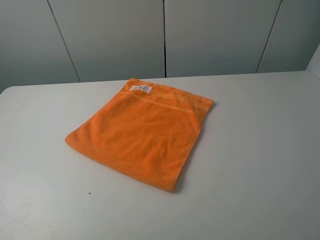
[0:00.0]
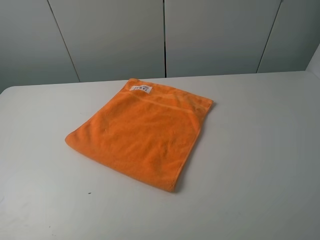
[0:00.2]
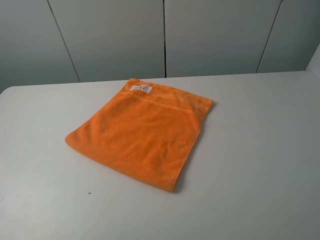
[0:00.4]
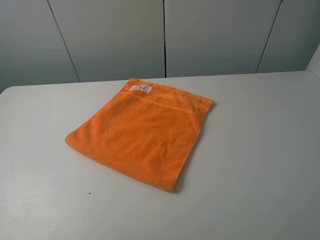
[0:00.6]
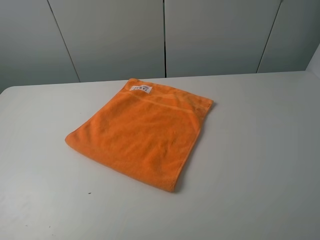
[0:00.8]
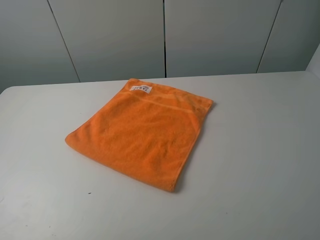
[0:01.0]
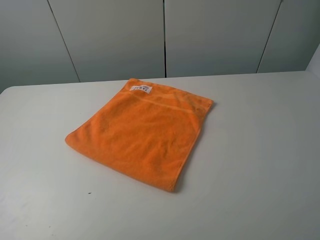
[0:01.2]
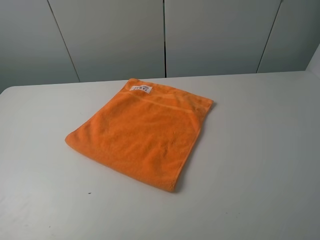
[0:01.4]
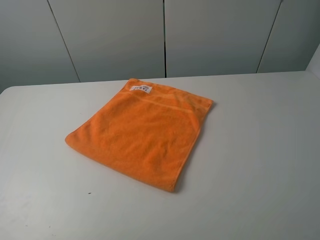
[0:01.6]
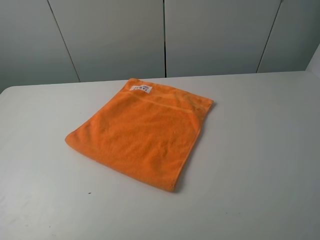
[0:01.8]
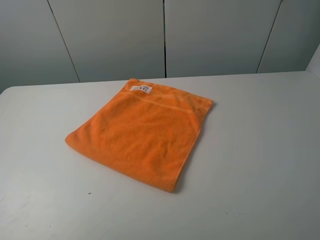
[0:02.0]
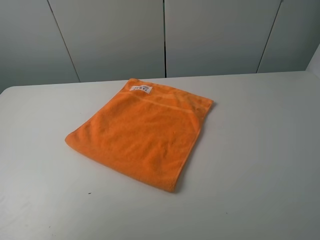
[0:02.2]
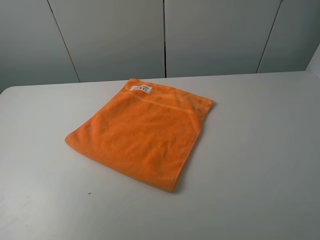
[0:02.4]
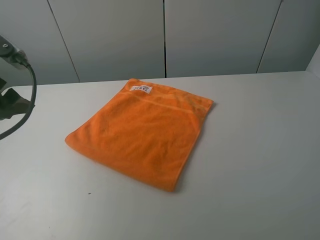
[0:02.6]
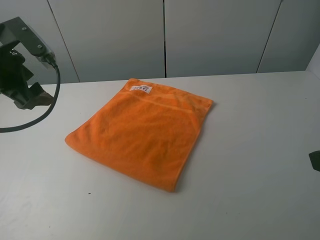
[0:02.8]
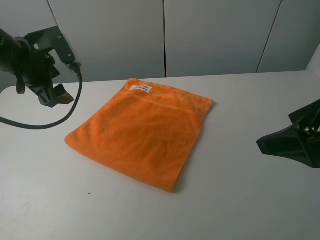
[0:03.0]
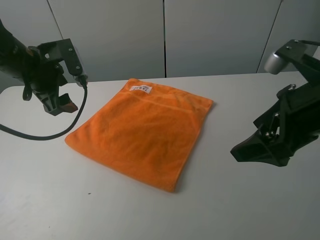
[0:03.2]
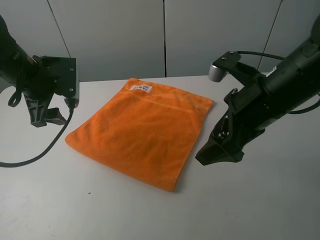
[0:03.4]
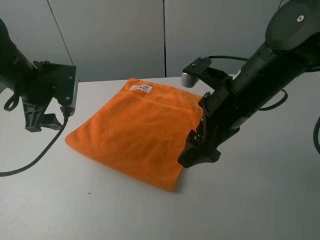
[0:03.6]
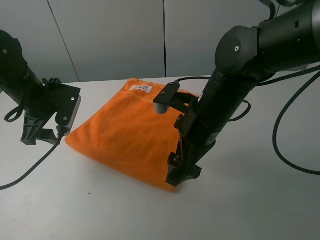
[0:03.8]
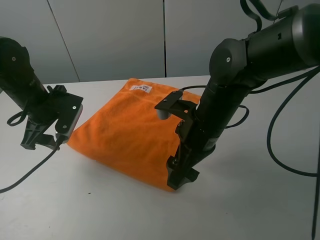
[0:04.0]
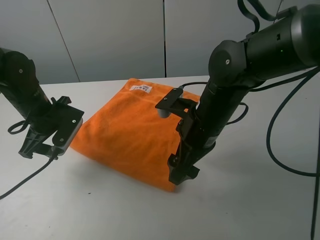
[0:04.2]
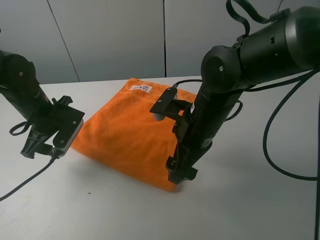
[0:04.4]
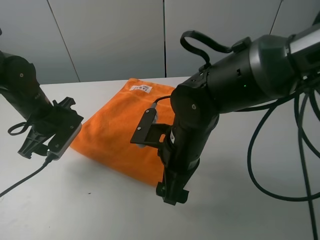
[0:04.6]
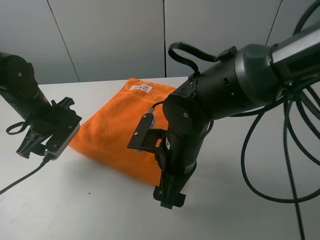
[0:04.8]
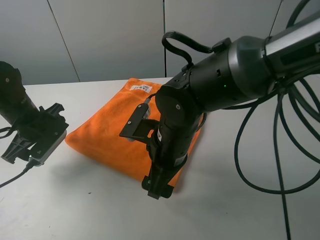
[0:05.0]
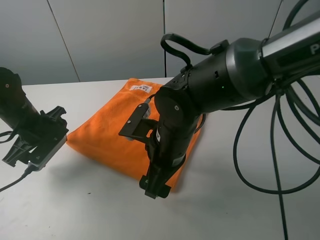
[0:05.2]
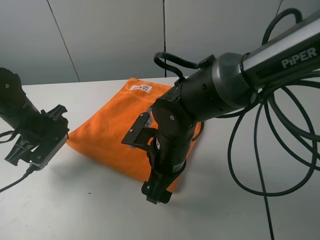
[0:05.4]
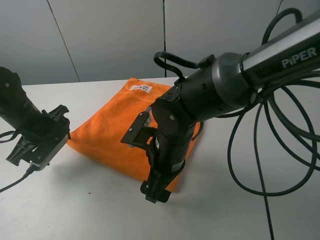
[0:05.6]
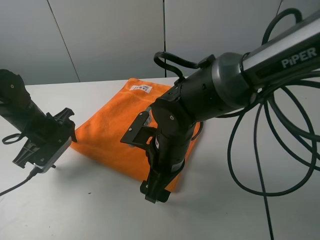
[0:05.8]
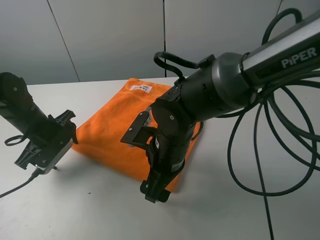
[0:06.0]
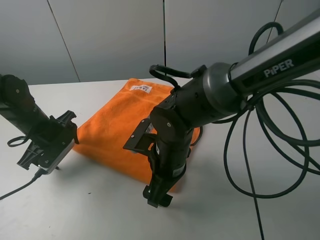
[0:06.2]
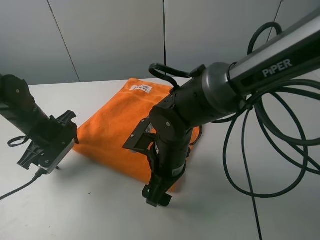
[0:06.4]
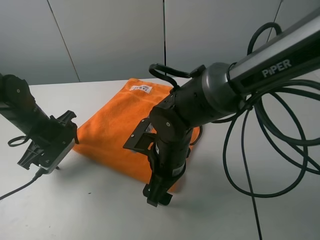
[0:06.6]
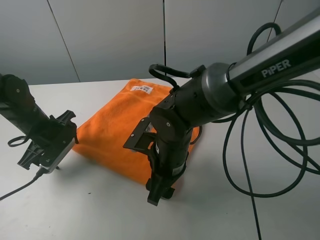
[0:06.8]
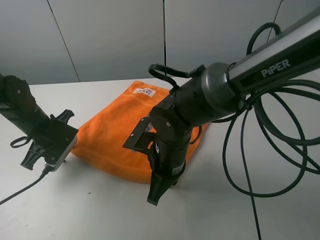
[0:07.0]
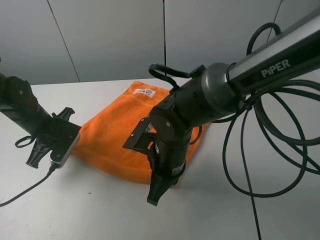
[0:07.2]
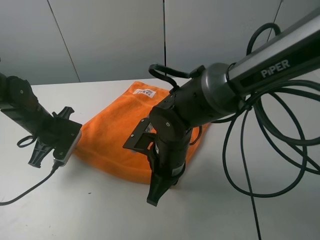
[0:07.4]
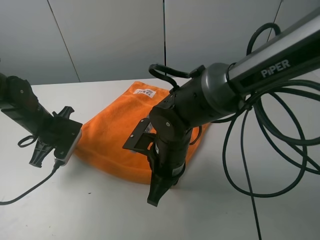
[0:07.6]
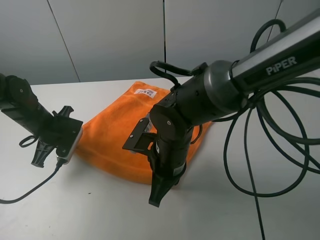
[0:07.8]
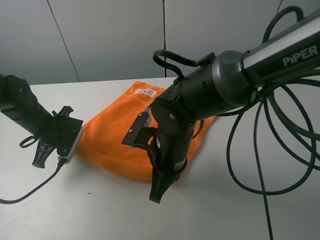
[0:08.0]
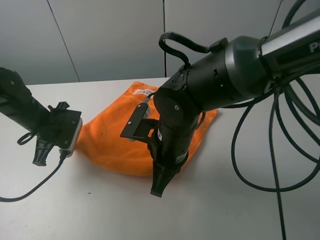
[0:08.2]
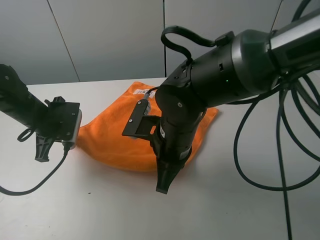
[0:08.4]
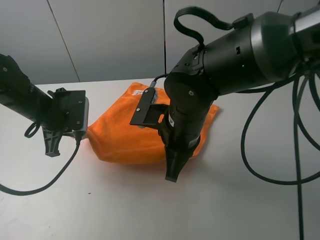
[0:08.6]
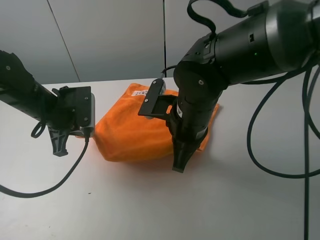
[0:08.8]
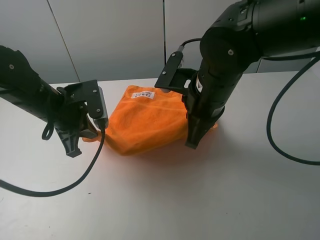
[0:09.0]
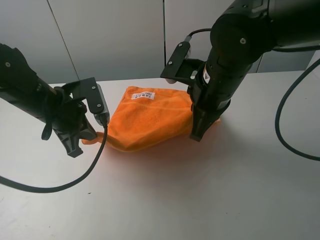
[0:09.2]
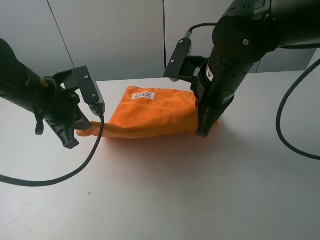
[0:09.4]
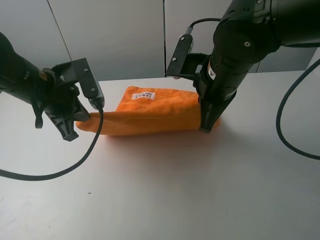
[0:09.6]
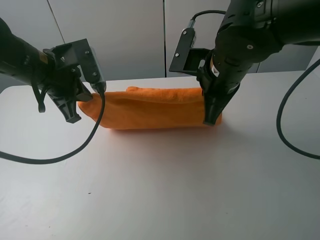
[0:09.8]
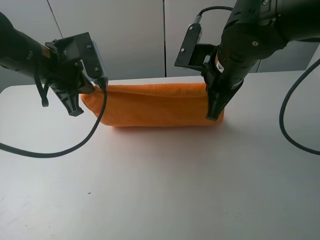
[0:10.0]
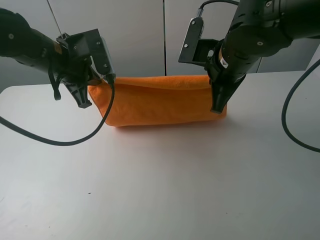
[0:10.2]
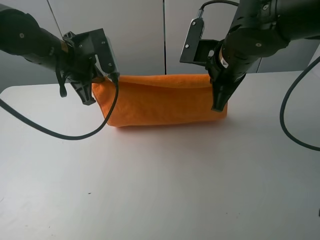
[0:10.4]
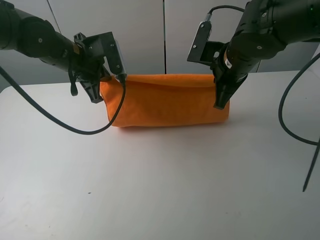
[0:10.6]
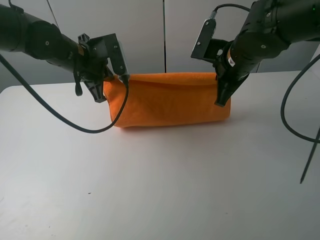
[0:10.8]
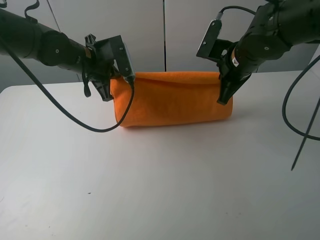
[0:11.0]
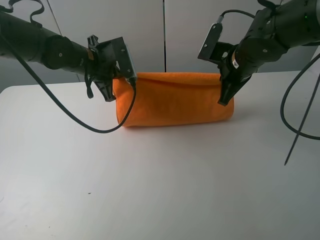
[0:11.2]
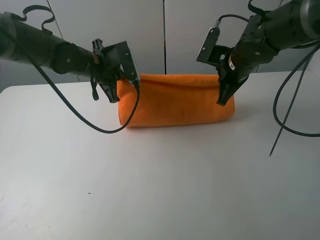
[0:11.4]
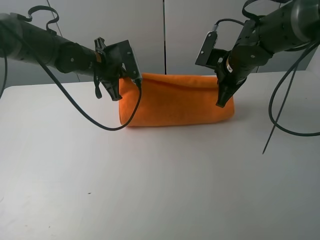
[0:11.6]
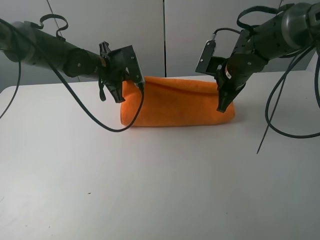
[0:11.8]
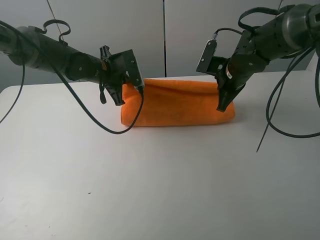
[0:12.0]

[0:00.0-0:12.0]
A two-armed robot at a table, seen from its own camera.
Task of the whole recording: fold the towels on the table.
Step, 0.0 to 7.2 s: Grasp the orange towel with the left gripper.
0.0 to 1.6 s: Both grippers stay put.
1.6 to 3.0 s: The left gripper heads forward, covering about 35 cm. The right gripper moves forward, roughly 15 cm.
3.0 to 4.4 s: The right gripper travels to the left, downward and forward by about 20 cm, while the left gripper moves downward, approximately 10 cm.
4.4 to 6.0 s: The right gripper shifts by about 5 cm.
6.0 to 7.6 s: The right gripper closes its fingers; the left gripper closes.
7.6 to 9.0 s: Both grippers move upward and to the right, some 10 cm.
9.0 to 10.4 s: The right gripper travels forward by some 5 cm; the left gripper heads forward and upward, covering roughly 10 cm.
10.4 to 12.0 s: The right gripper goes some 10 cm forward and downward. Meanwhile the left gripper moves downward and forward, some 10 cm.

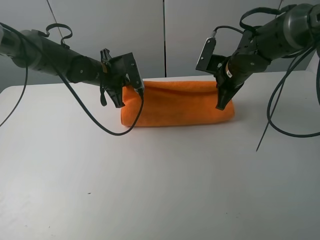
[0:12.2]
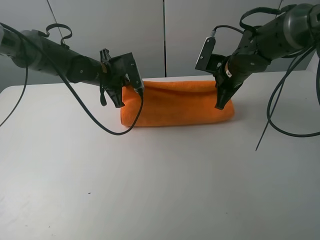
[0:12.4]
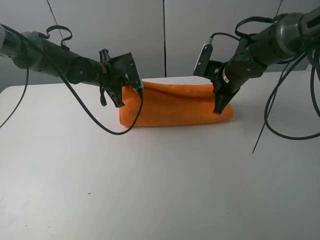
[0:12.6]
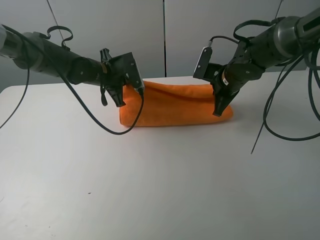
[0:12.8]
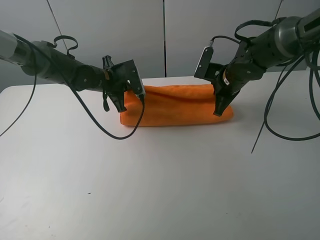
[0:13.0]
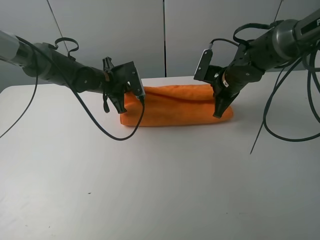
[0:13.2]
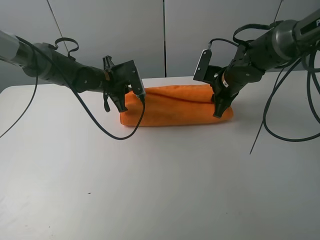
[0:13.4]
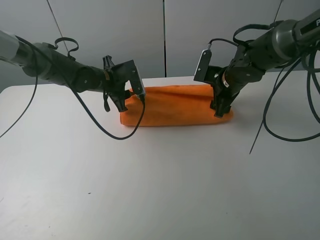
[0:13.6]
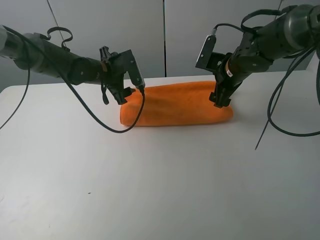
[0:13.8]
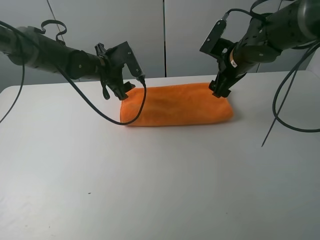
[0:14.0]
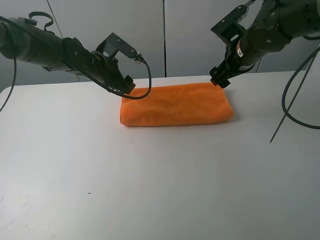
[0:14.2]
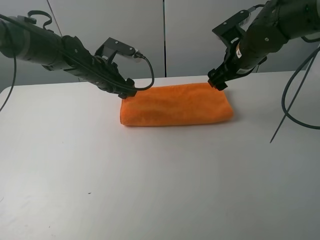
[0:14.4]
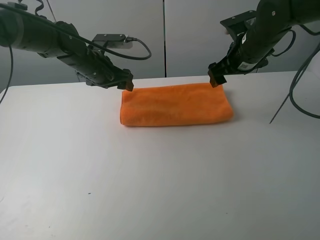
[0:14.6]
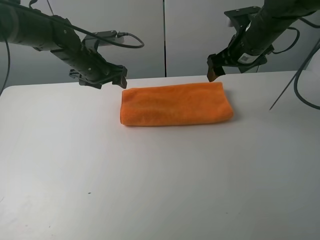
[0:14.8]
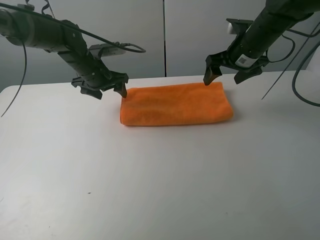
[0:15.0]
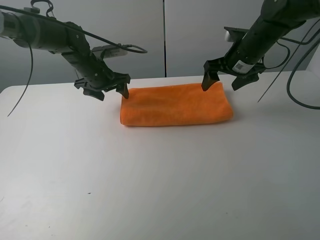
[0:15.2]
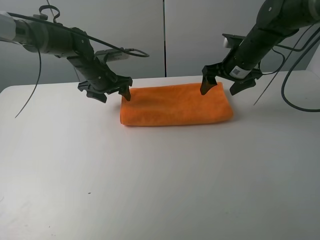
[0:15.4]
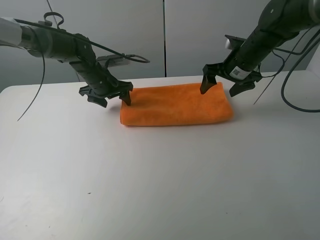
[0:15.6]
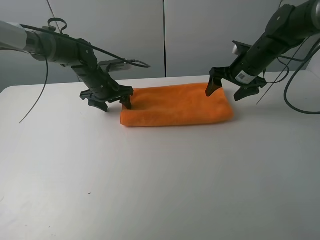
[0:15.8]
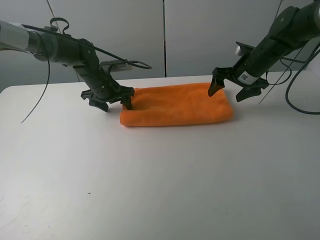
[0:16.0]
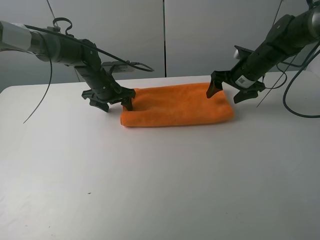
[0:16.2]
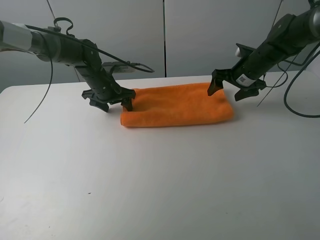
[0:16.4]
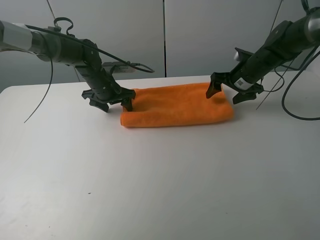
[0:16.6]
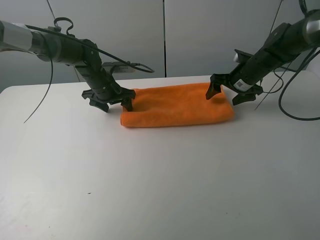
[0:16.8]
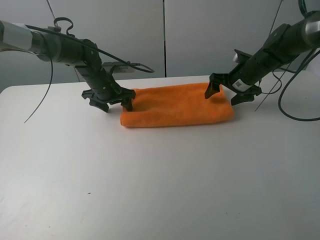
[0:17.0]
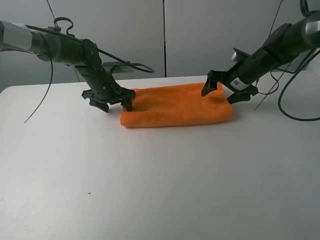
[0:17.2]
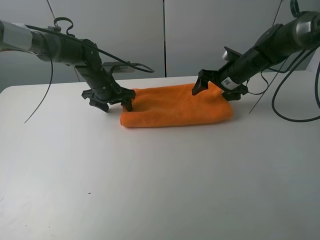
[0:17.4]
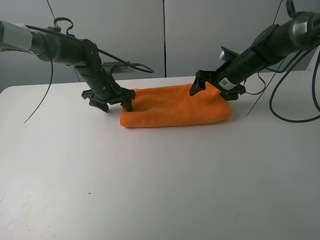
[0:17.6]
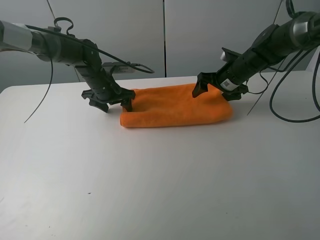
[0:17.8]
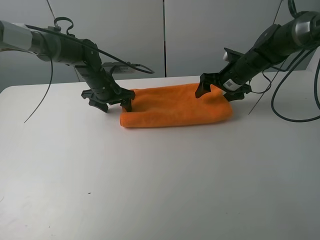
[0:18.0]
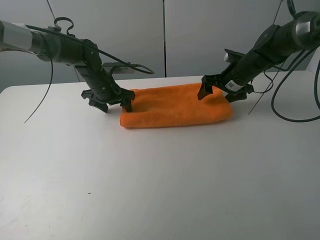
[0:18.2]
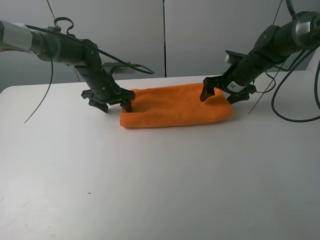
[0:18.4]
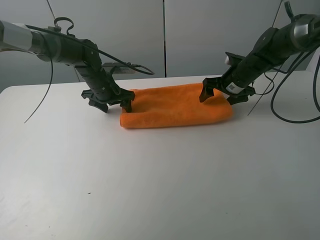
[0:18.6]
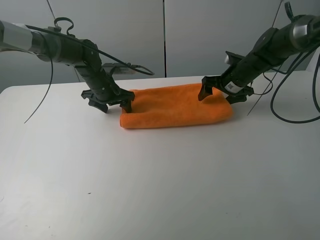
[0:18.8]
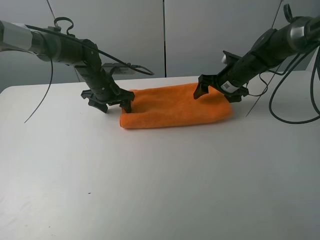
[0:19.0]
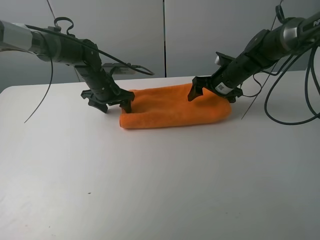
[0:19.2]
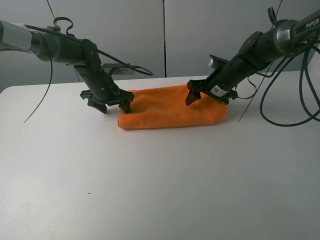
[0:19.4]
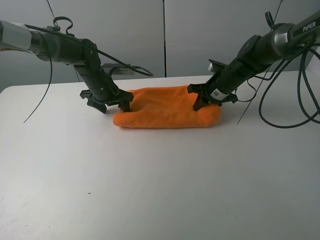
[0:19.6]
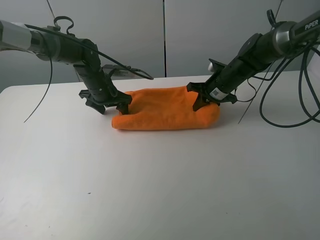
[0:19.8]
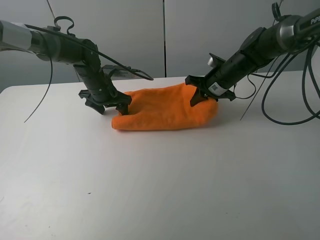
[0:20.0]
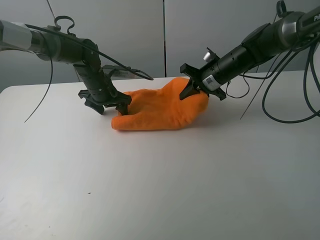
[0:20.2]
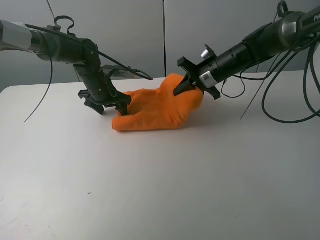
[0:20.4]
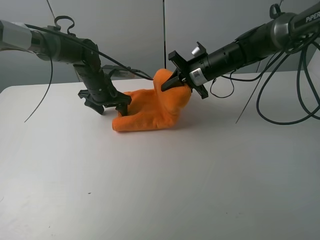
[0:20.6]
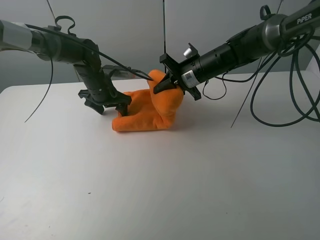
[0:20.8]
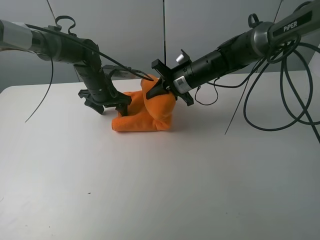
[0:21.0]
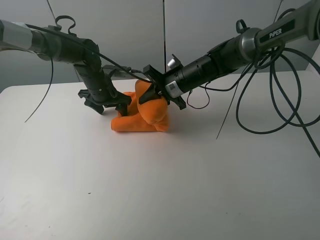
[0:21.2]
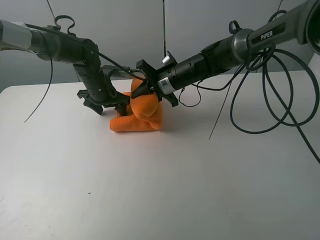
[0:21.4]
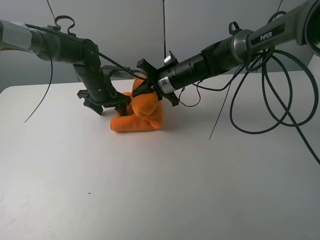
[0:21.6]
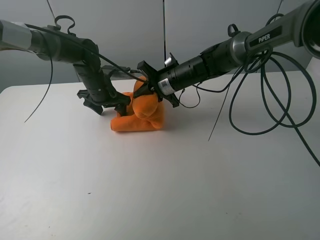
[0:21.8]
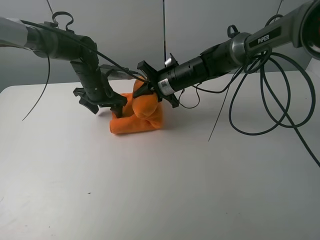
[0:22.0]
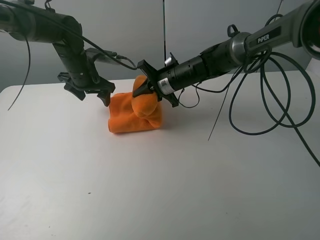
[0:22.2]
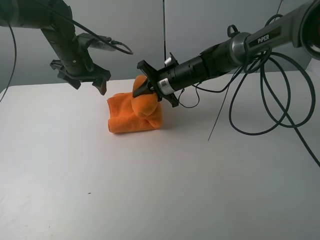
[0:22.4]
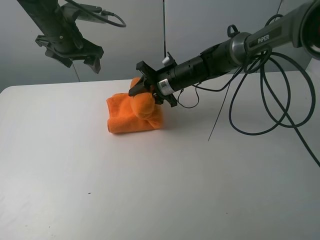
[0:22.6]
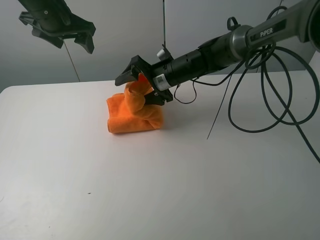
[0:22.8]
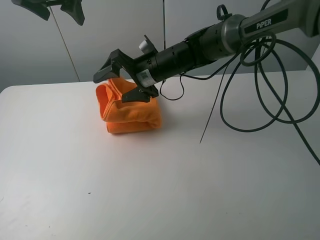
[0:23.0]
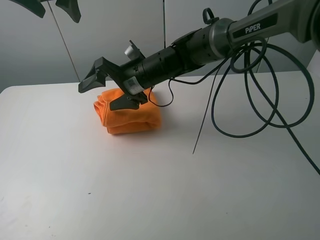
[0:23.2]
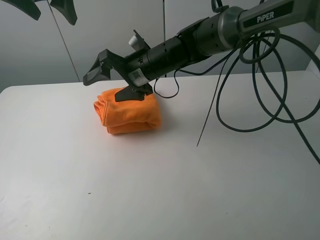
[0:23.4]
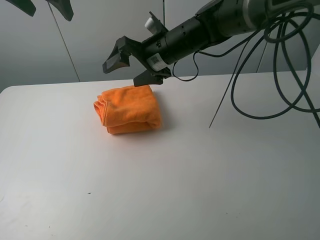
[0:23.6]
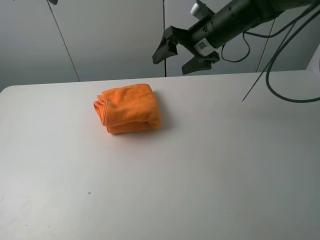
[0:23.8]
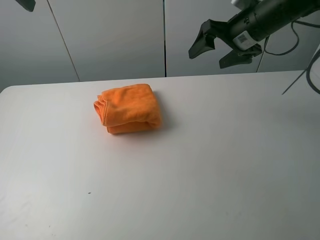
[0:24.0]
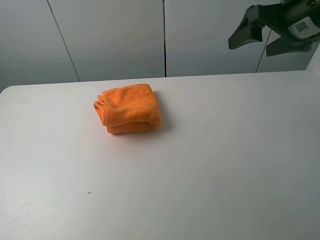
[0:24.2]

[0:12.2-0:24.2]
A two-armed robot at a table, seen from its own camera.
Task of the whole recording: fold the towels on the table.
Step, 12.2 to 14.4 s: Fold the orange towel upwards with the right gripper.
Step, 14.6 to 15.8 s: Press on the orange towel with the left gripper.
Step, 16.0 to 23.6 s: Fold the orange towel from right to left with right gripper.
12.2 to 13.8 s: The right gripper opens up. The left gripper opens.
15.2 to 16.6 s: The right gripper heads downward, covering roughly 5 cm.
16.6 to 18.2 s: The grippers move only a little.
18.2 to 19.8 s: The right gripper closes up.
19.8 to 21.2 s: The right gripper travels to the left by roughly 10 cm.
21.2 to 22.6 s: The right gripper opens. The left gripper is displaced upward by approximately 15 cm.
22.6 to 24.2 s: The right gripper goes approximately 30 cm upward, to the right and backward, while the left gripper moves backward and upward, approximately 25 cm.
